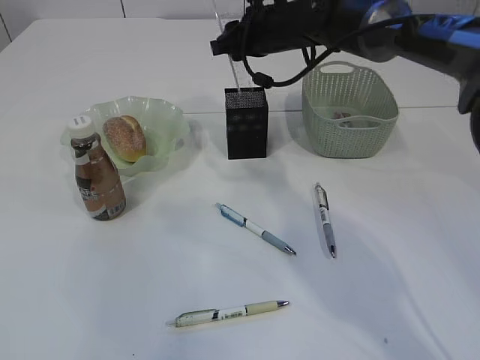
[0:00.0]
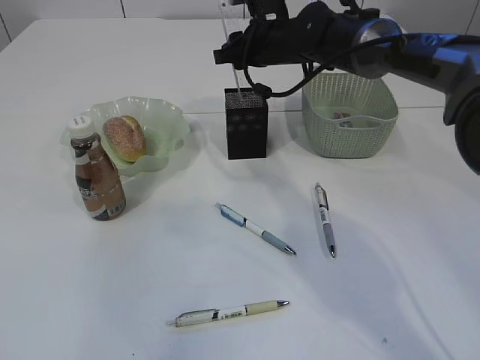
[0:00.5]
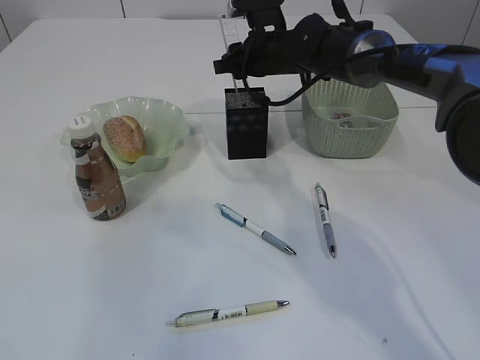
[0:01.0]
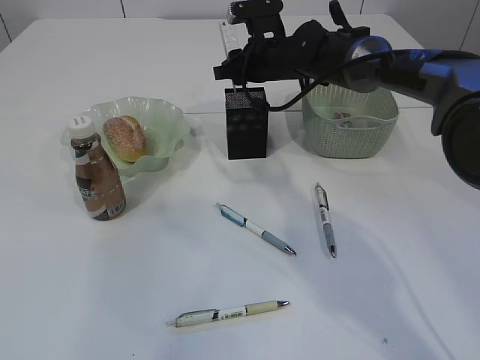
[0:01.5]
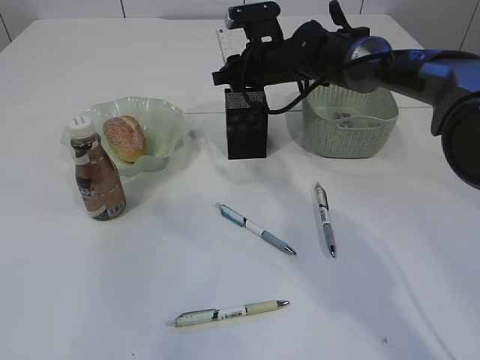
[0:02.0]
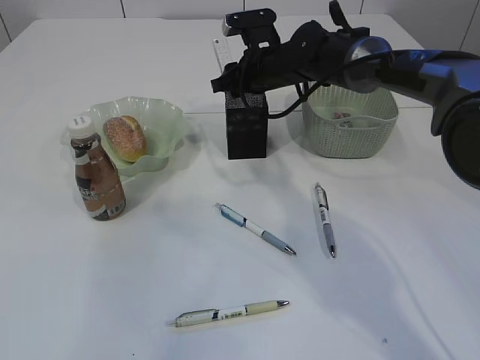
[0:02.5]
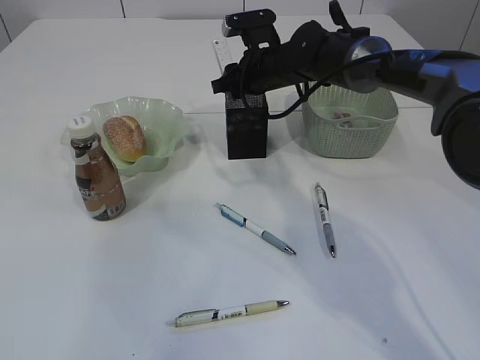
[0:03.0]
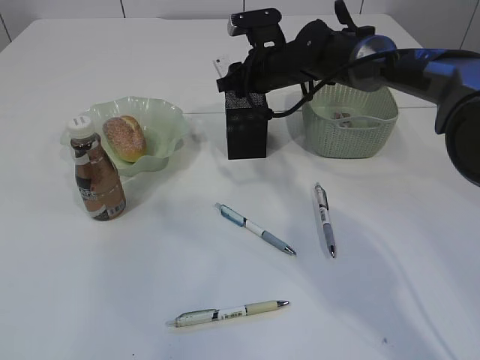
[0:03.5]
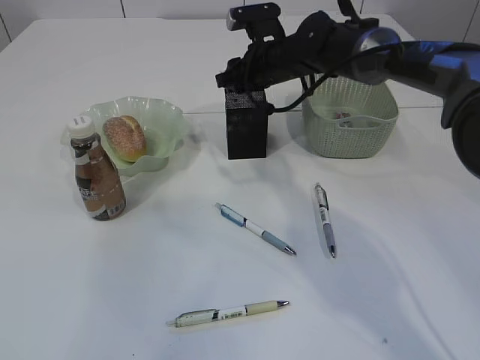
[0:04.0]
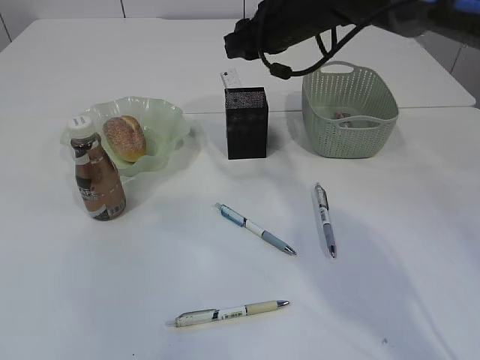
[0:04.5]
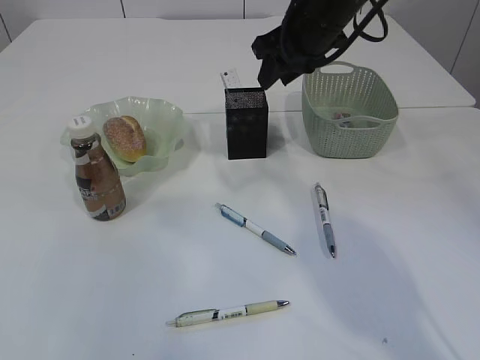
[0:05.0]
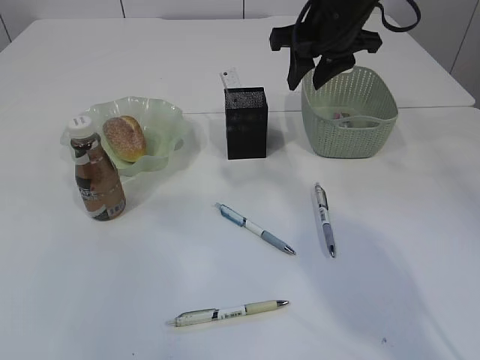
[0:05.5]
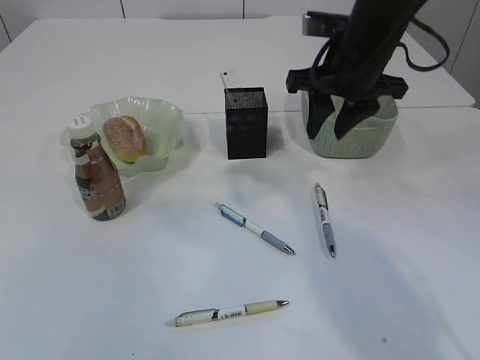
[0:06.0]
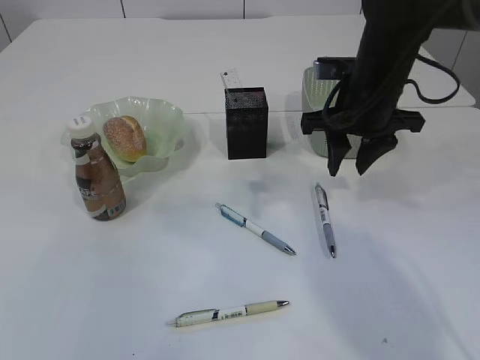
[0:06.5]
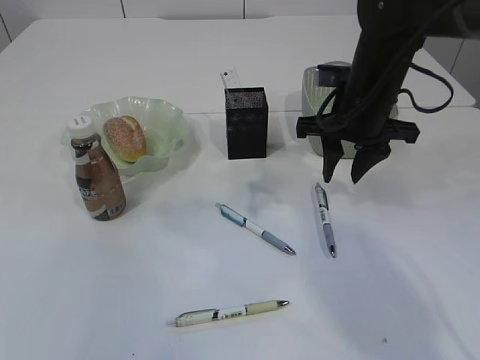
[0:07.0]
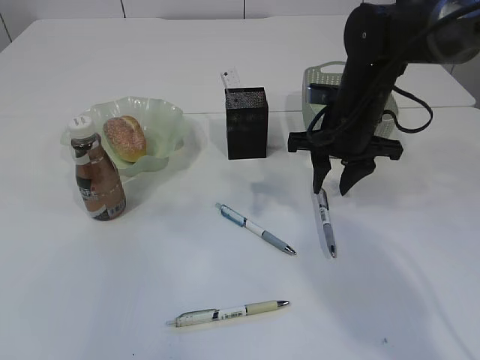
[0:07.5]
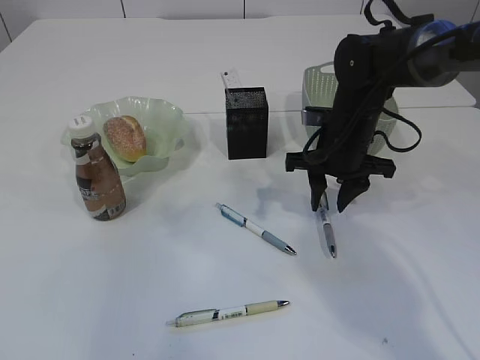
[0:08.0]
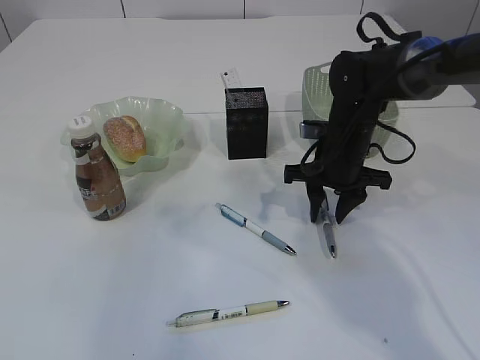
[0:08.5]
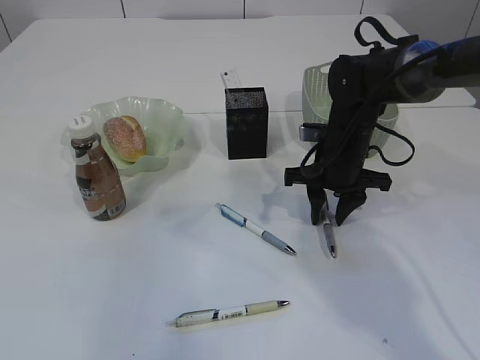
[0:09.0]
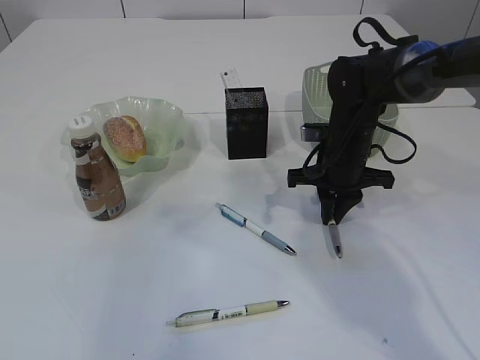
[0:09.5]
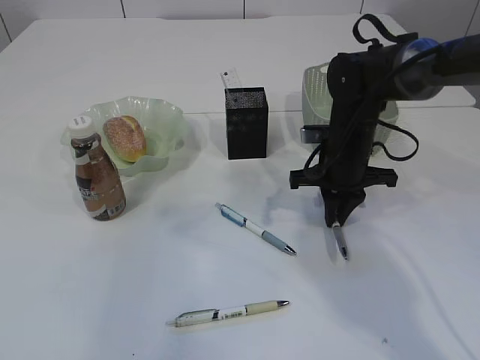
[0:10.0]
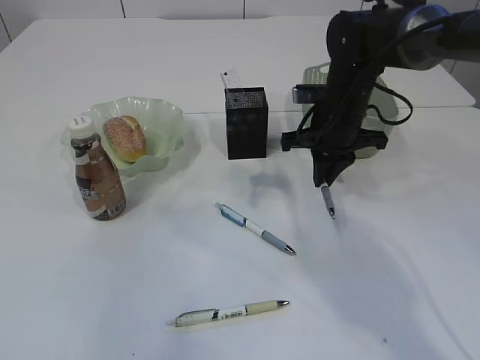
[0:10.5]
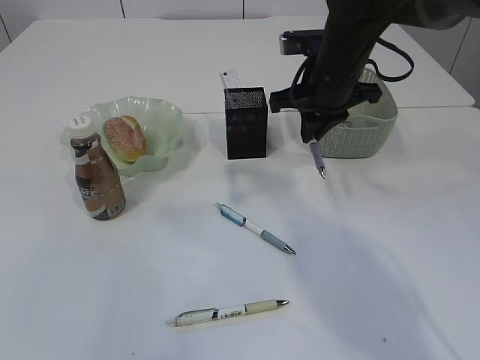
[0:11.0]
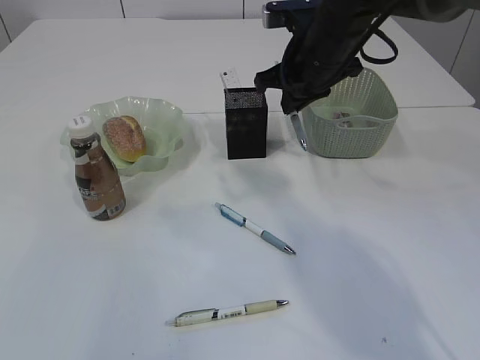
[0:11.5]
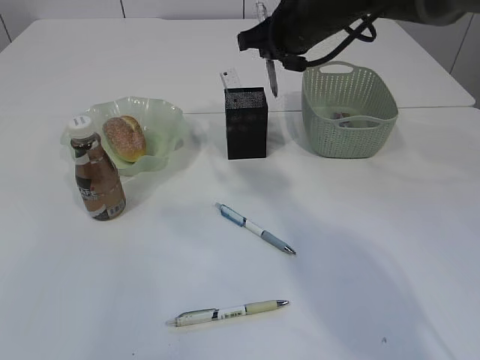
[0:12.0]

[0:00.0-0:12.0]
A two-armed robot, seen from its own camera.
Step, 0:00.0 to 0:05.0: Place the ruler into the pen holder.
Step, 0:05.5 to 0:11.0: Pick up the pen with right arm.
0:00.0 to 0:02.0: The right gripper travels downward by some 5 cm.
0:02.0 to 0:04.0: The grippers stay close to where they were, moving slightly.
0:04.0 to 0:06.0: The right gripper moves backward, upward and to the right, approximately 15 cm.
0:06.0 to 0:08.0: The right gripper moves downward, approximately 10 cm.
0:08.0 to 0:10.0: The right gripper closes its fingers.
0:10.0 to 0:12.0: The right gripper heads upward, covering some 15 cm.

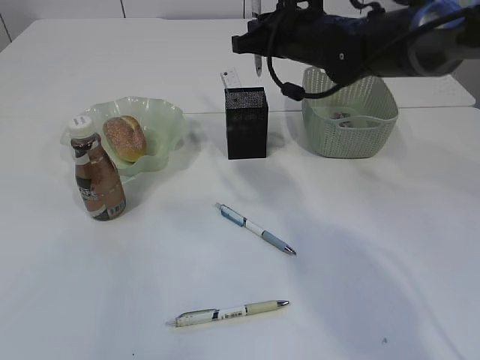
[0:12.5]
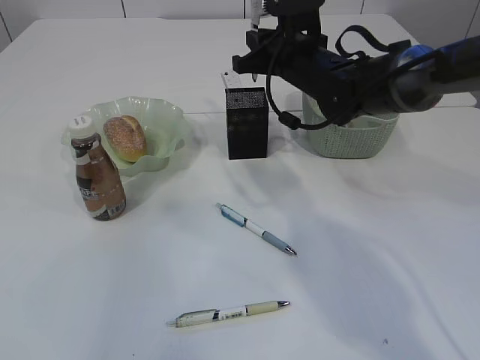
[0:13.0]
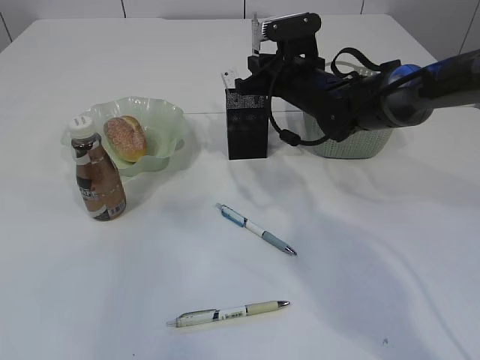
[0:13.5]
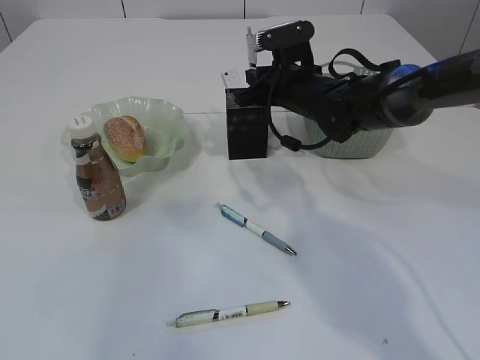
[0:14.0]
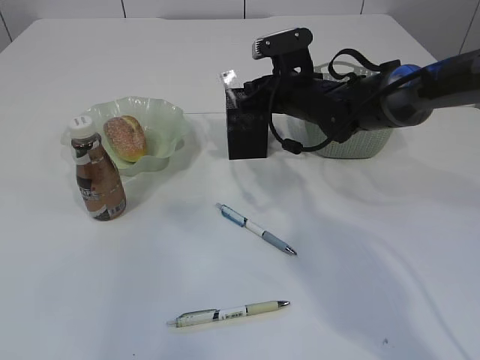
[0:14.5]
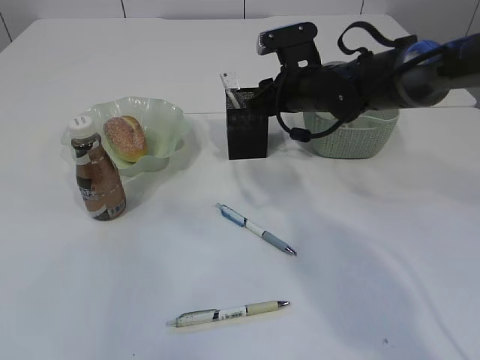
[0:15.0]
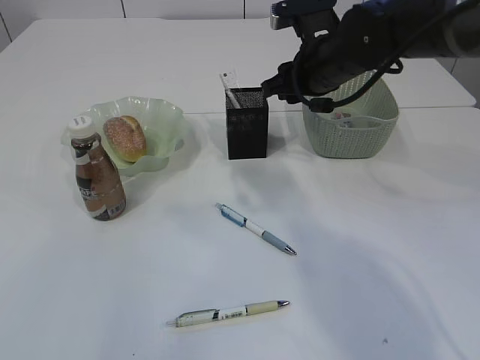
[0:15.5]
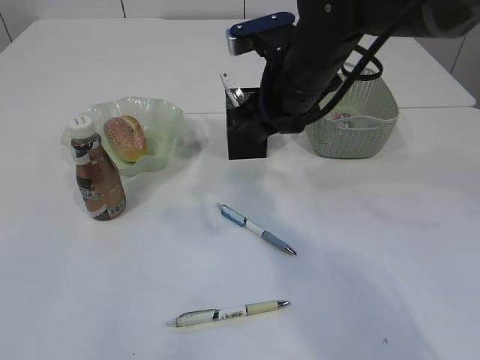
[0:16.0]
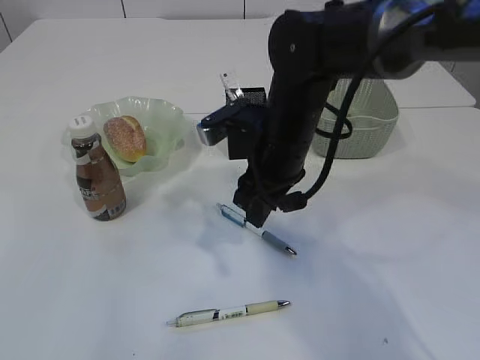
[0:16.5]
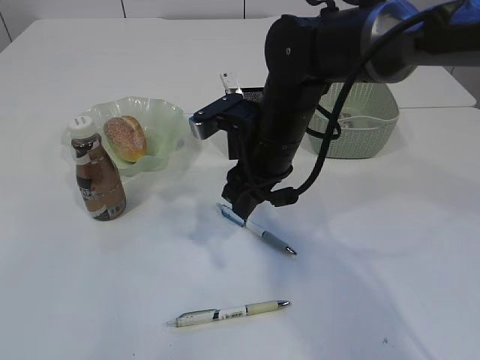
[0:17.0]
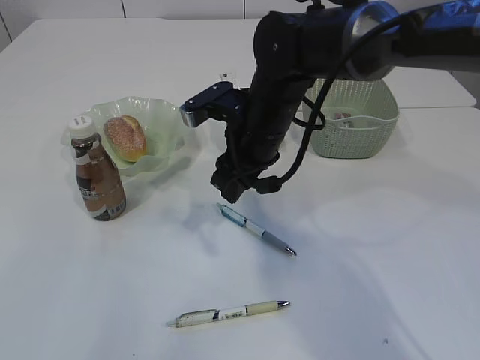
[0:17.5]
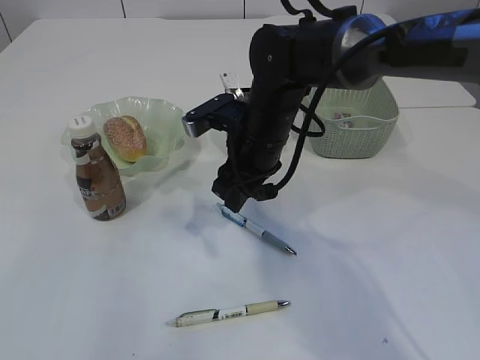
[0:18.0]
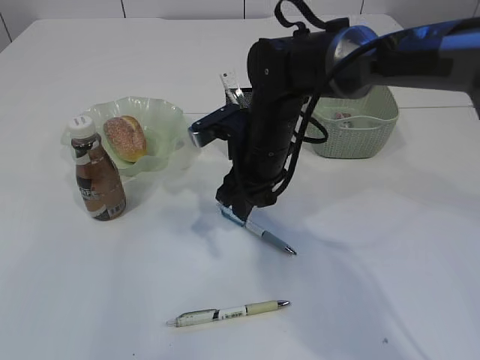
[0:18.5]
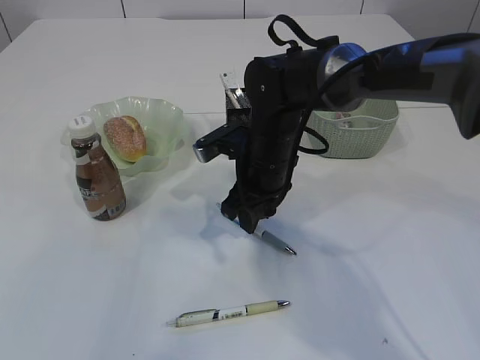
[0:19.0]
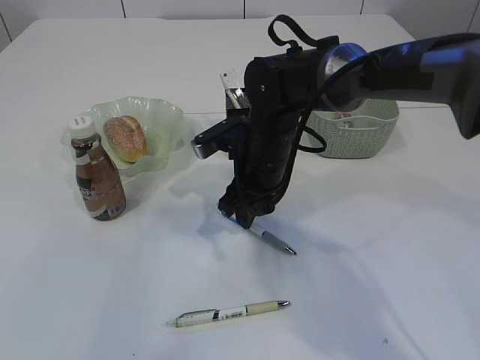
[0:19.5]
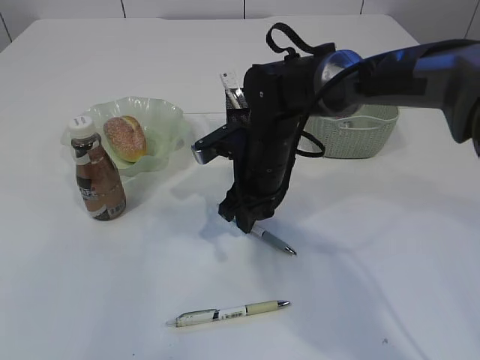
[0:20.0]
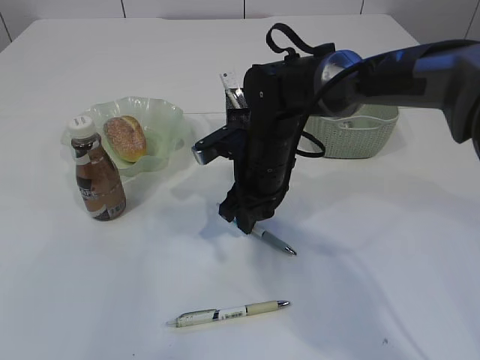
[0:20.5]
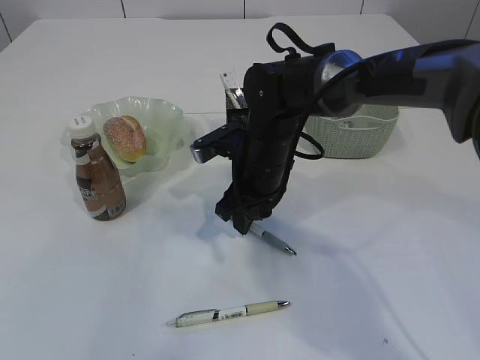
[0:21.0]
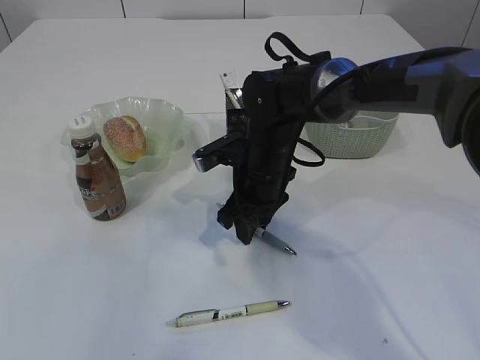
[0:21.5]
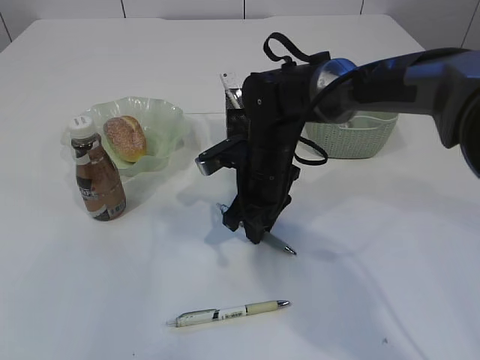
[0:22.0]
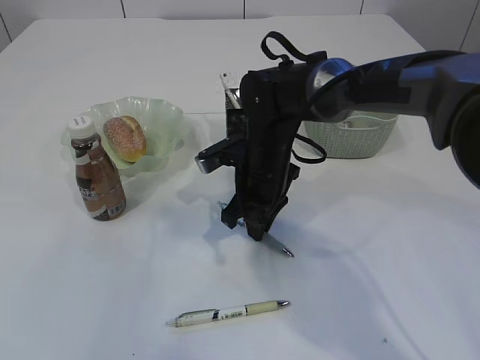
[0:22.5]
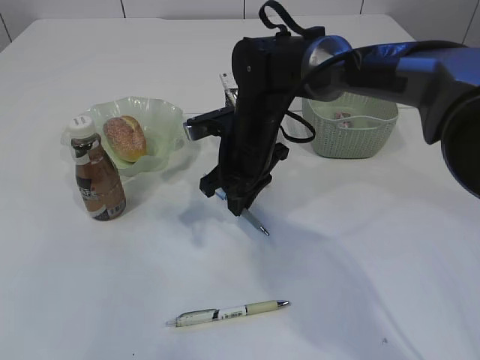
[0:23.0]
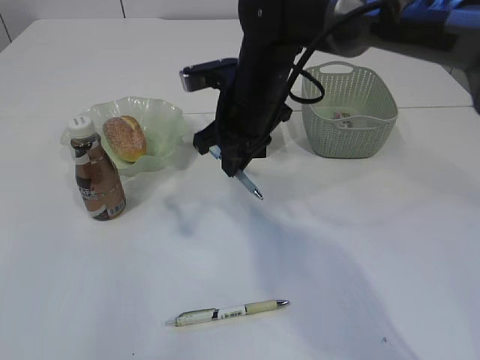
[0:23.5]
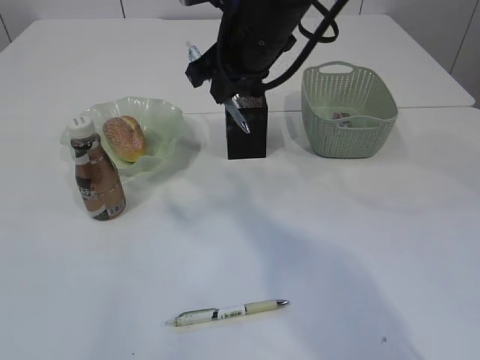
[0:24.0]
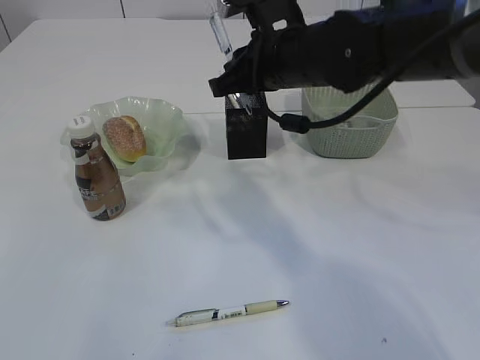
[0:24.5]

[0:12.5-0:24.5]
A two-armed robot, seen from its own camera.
Step, 0:12.5 to 0:15.0: Place the pen into the pen holder.
Step, 0:15.5 to 0:23.0: Pick up the pen with right arm.
0:12.5 to 0:14.5: The right gripper heads downward, covering about 10 cm.
0:14.5 to 0:16.5: The right gripper travels backward by roughly 10 cm.
0:16.5 to 0:18.5: The right gripper changes place by roughly 5 cm.
0:18.5 to 0:20.5: The grippers move only a little.
0:20.5 to 0:22.5: The right gripper closes.
0:22.5 to 0:24.5: The right gripper travels upward by about 15 cm.

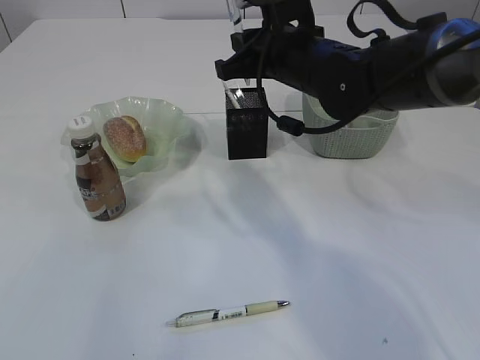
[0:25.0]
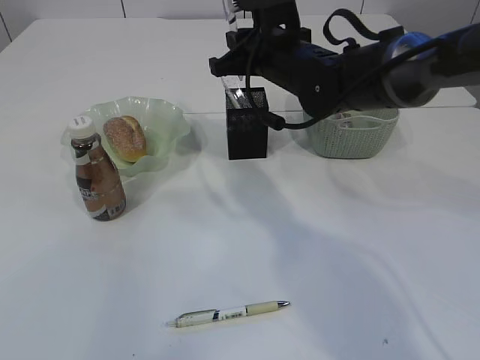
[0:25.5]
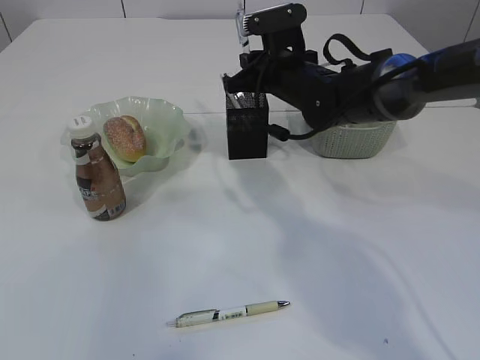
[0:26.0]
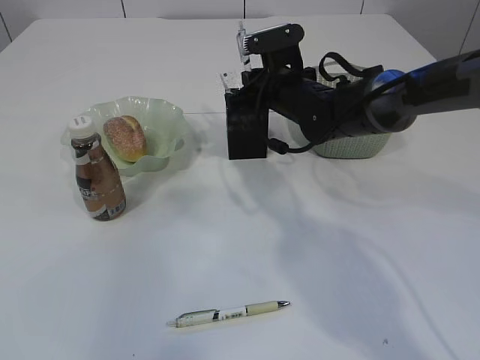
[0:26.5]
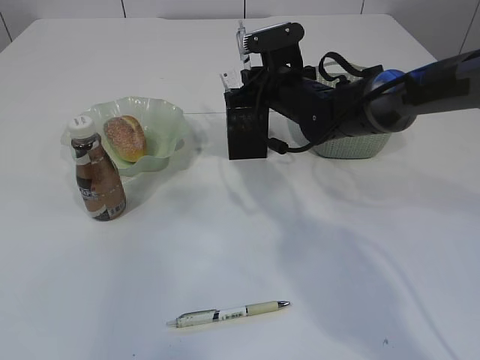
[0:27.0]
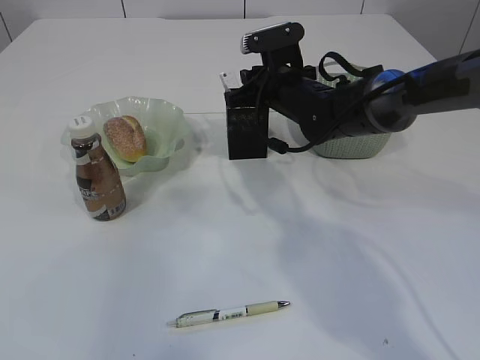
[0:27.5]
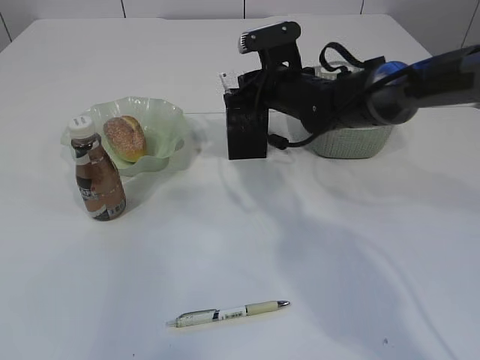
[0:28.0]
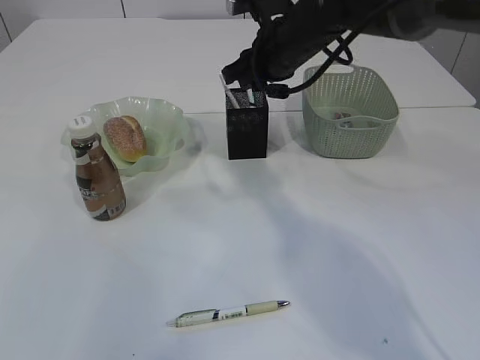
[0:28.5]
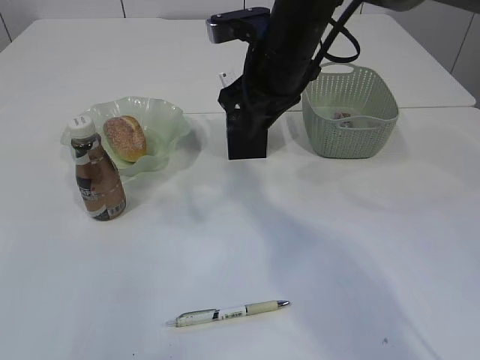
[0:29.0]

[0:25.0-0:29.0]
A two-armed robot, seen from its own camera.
Step, 0:25.0 to 0:28.5: Place the pen into the pen holder.
0:25.0 to 0:27.0: The right gripper is displaced downward and forward by some 10 cm.
0:27.0 to 0:29.0: The right gripper travels upward and backward by roughly 10 cm.
